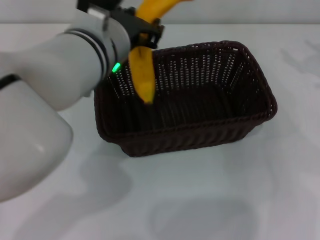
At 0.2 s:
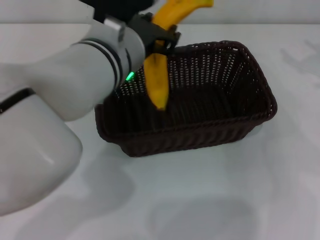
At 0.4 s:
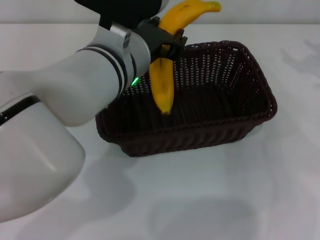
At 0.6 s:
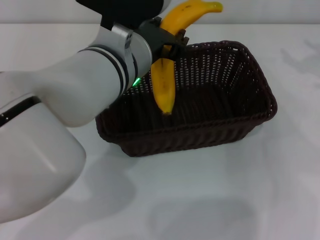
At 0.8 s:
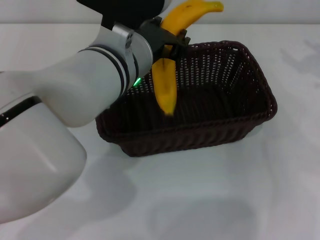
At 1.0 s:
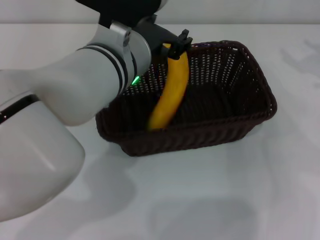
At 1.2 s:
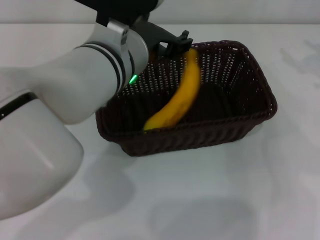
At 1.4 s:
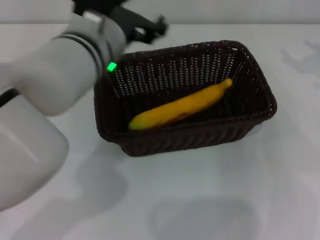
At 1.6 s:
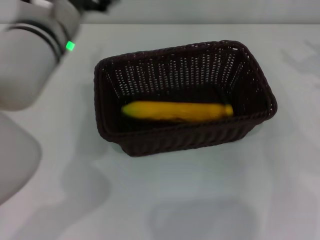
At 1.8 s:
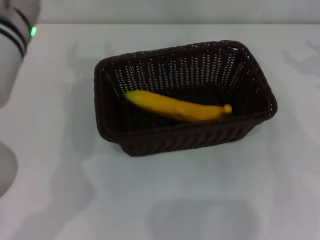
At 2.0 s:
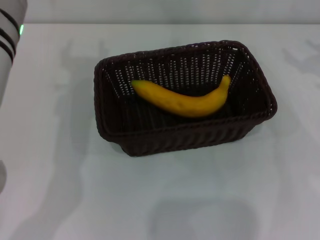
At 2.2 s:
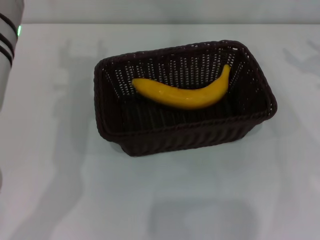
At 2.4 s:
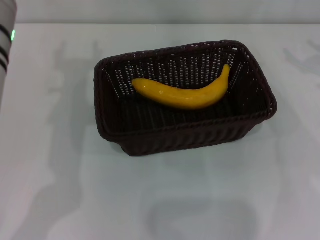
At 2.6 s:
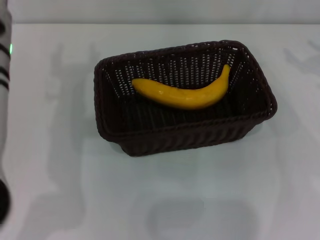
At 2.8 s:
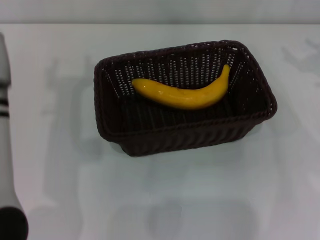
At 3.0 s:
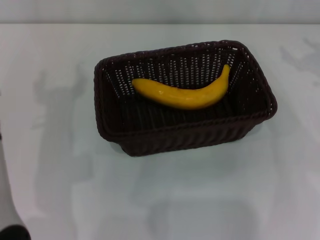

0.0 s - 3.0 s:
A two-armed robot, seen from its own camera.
0.0 s - 1.6 s: The left gripper opens up.
1.6 s - 3.0 s: The left gripper travels to the left and backward by some 10 cm.
